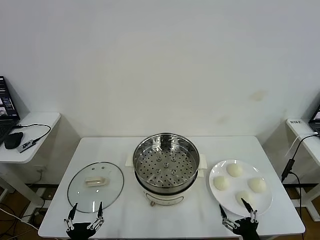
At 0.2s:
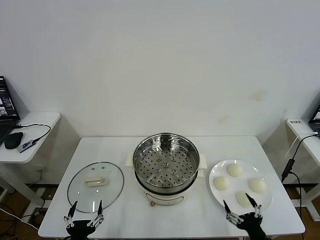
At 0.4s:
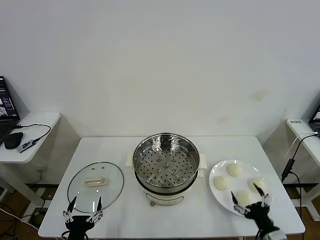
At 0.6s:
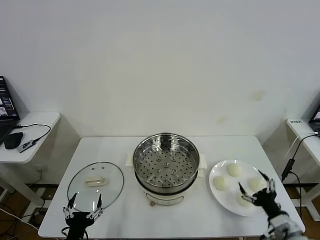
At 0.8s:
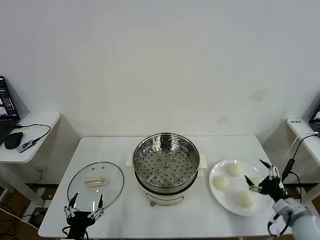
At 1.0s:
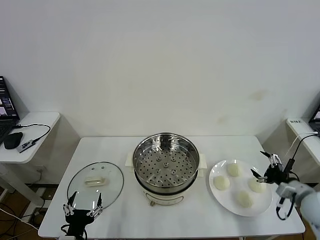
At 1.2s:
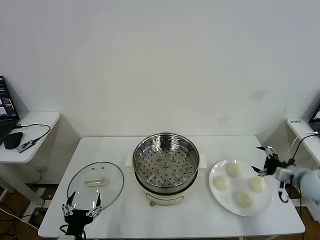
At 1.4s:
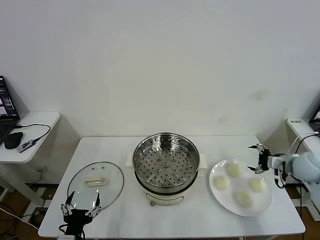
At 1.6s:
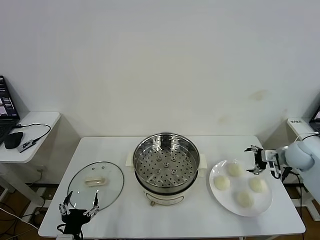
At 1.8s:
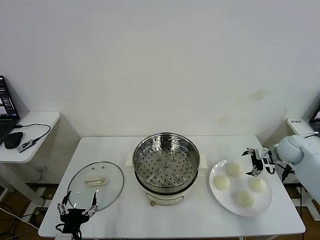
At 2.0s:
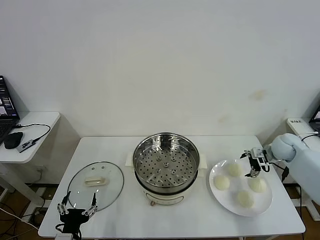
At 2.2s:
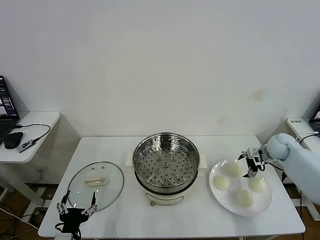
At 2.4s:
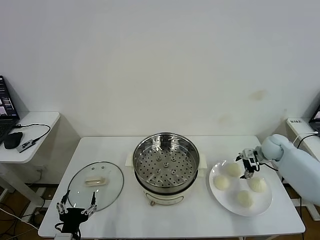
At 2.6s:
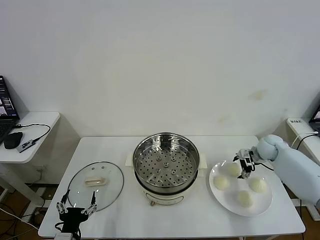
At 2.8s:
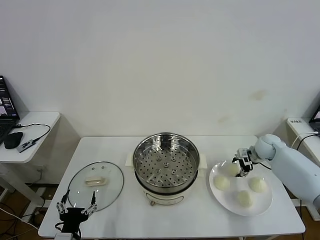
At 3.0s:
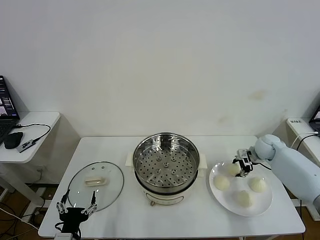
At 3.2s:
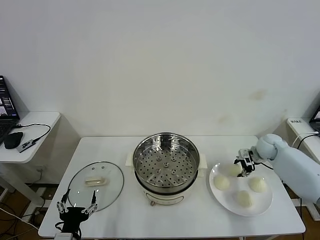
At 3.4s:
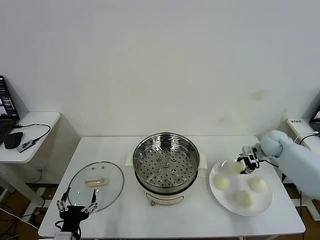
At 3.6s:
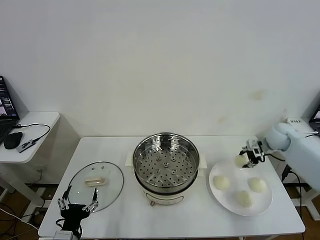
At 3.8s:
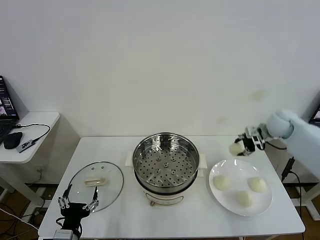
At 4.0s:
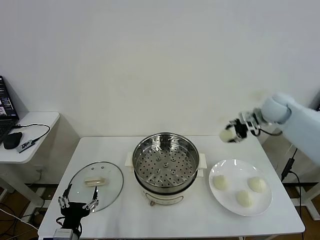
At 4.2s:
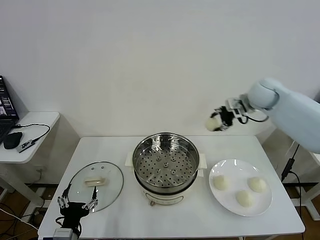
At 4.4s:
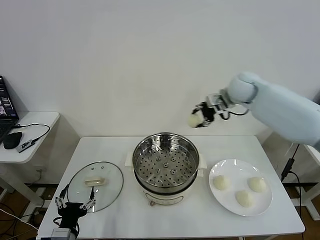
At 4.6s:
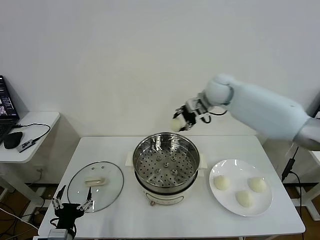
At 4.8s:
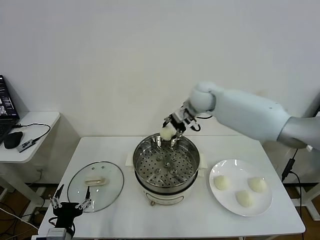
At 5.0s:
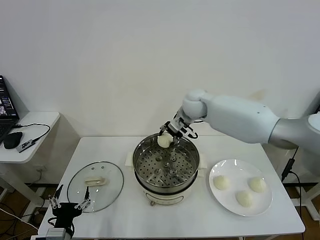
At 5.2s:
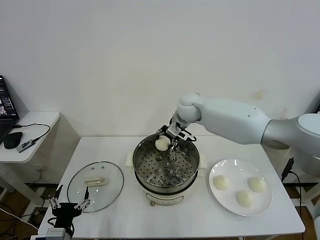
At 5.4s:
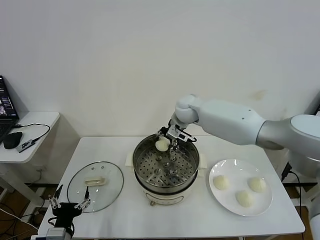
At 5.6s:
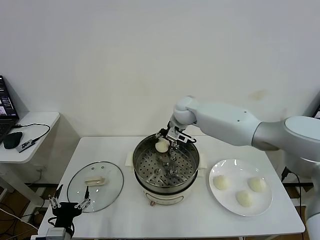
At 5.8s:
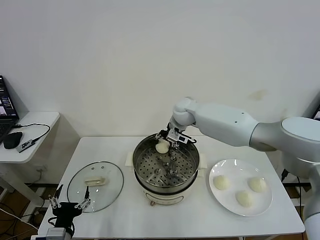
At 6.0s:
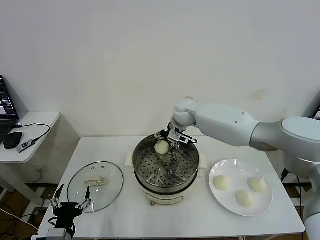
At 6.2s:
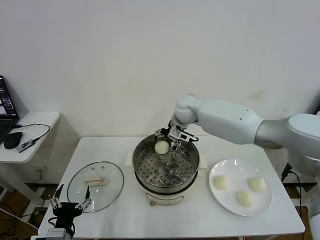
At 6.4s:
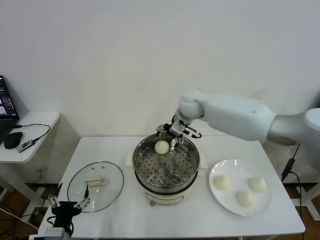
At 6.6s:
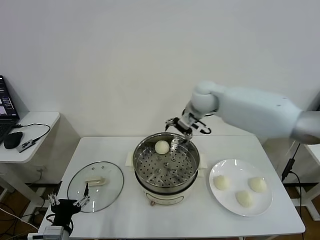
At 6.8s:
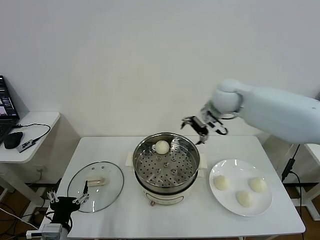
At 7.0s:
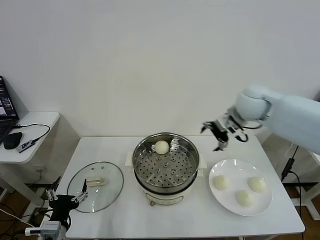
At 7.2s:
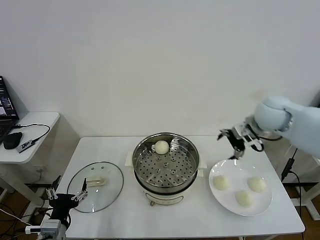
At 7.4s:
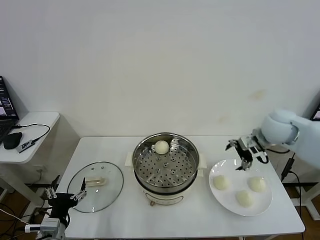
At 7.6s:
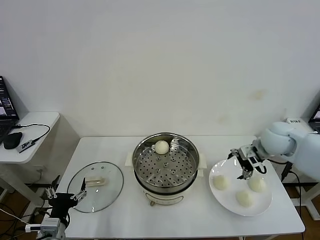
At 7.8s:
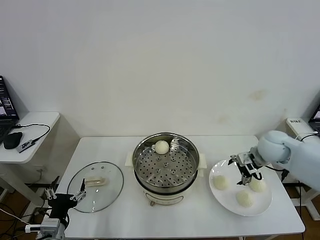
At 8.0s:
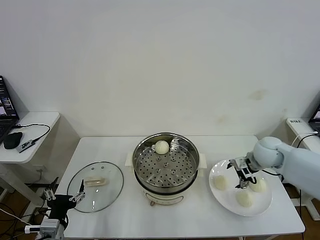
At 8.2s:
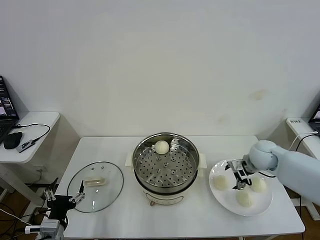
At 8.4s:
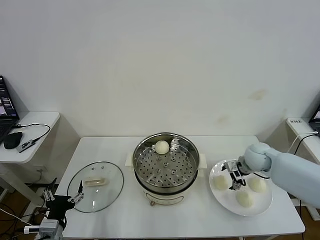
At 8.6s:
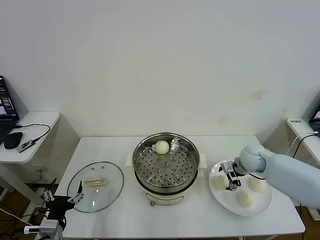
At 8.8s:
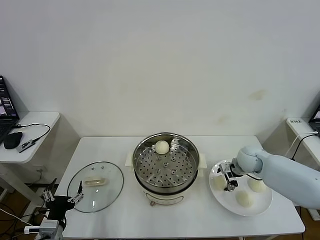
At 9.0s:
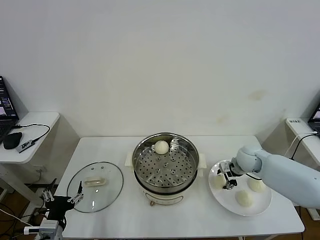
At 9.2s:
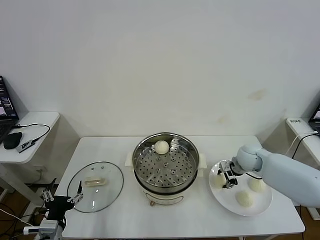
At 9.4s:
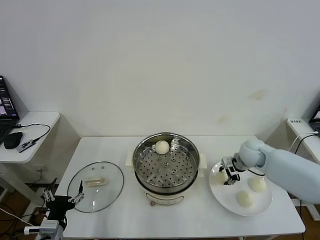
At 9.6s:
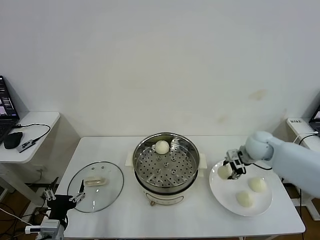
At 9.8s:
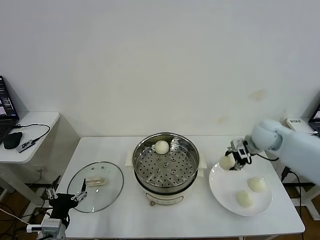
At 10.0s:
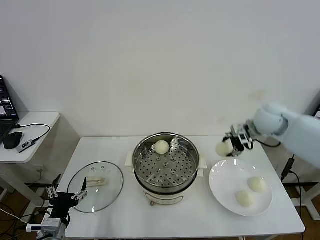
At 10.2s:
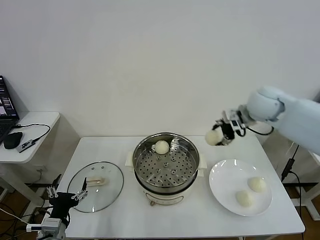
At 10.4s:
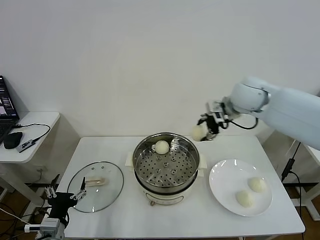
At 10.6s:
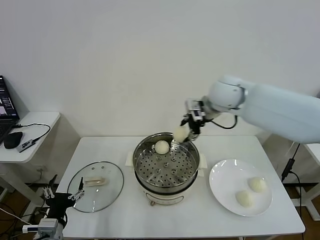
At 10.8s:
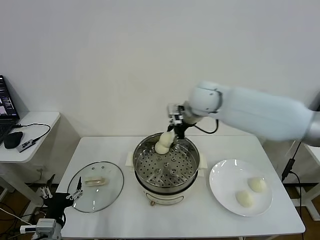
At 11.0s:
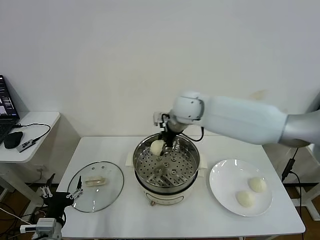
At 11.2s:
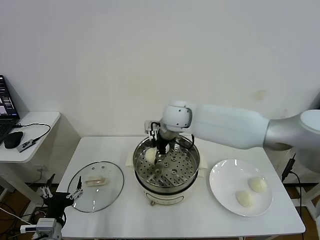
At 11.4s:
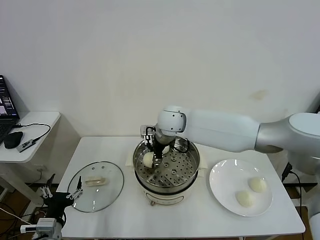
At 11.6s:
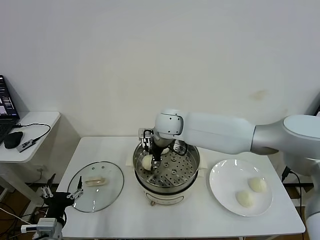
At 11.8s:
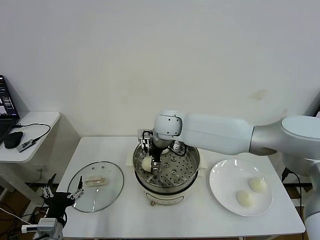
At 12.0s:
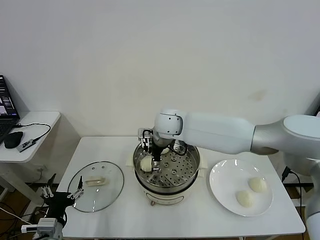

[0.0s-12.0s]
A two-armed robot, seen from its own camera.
Task of the whole recording: take steamed baozi put them in steamer then cover it.
Step, 0.0s to 3.0s: Grasp the baozi in the plate with right gripper.
Step, 3.2s to 5.8s: Place the baozi on the steamer with right gripper.
Step, 6.2s to 9.2s: Grasp the baozi in the plate with right gripper.
Step, 9.4s to 11.8s: Place the baozi on the steamer with right gripper.
1.6s to 3.0s: The right gripper travels forward and downward by approximately 10 cm, and closes.
3.0s to 4.4s: The right gripper shifts some 30 cm upward and to the left.
4.4s to 6.0s: The right gripper shifts approximately 15 cm to the left and downward, and opens its fingers.
6.0s to 7.6s: The right gripper heads to the right and backward, covering about 30 cm.
7.6s to 9.0s: The right gripper is displaced downward by about 10 cm, and closes.
9.0s to 10.4s: The right gripper heads upward and to the left, covering roughly 30 cm.
10.4s to 12.0s: The right gripper goes roughly 20 cm to the left and downward, and opens its fingers.

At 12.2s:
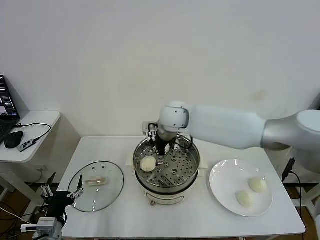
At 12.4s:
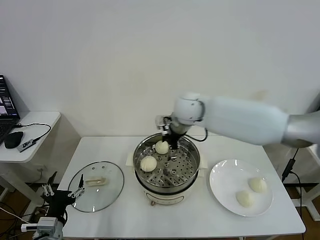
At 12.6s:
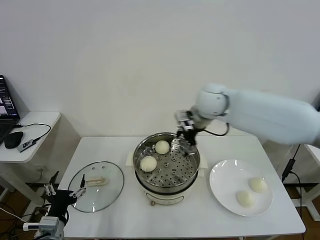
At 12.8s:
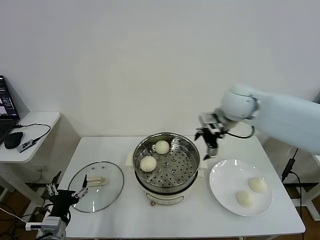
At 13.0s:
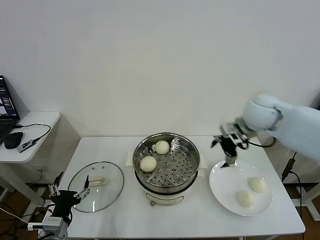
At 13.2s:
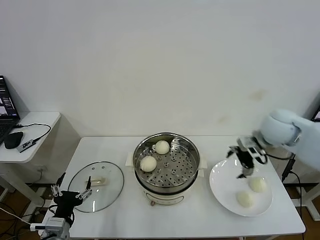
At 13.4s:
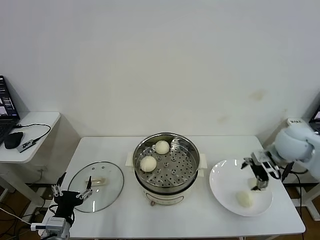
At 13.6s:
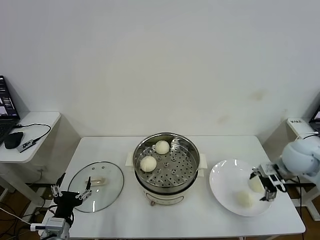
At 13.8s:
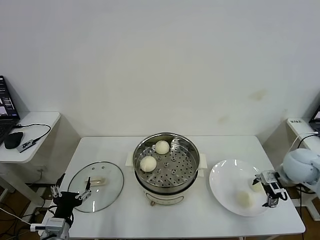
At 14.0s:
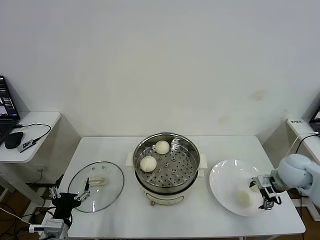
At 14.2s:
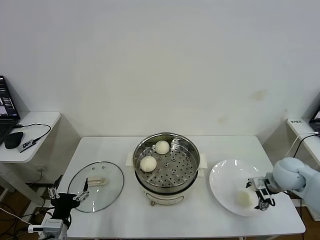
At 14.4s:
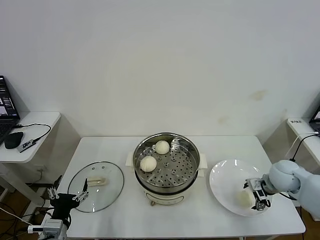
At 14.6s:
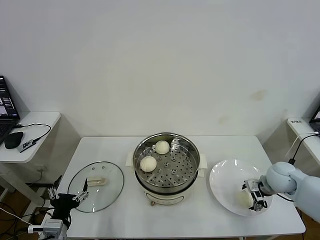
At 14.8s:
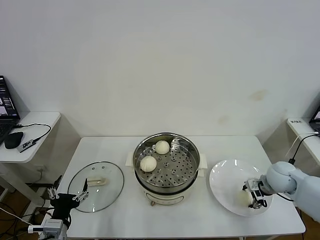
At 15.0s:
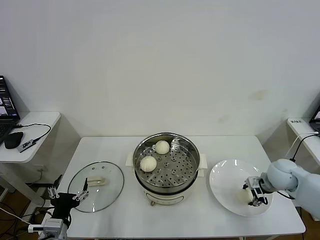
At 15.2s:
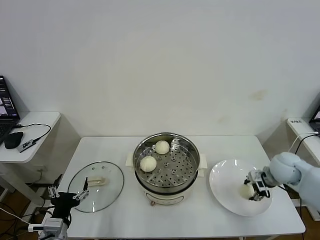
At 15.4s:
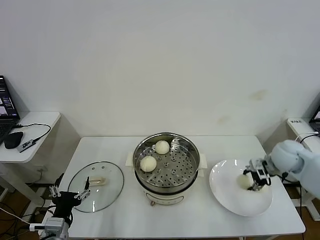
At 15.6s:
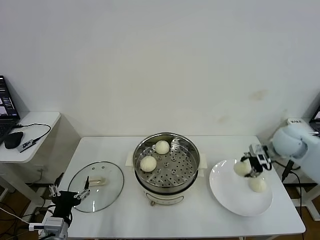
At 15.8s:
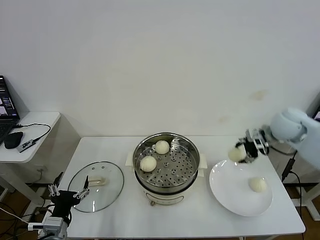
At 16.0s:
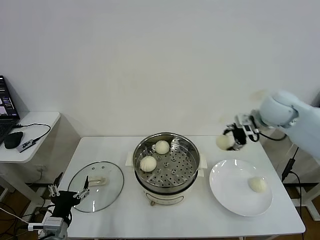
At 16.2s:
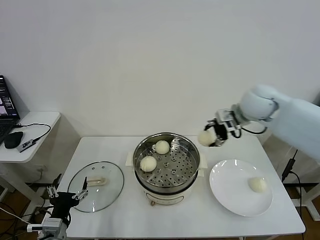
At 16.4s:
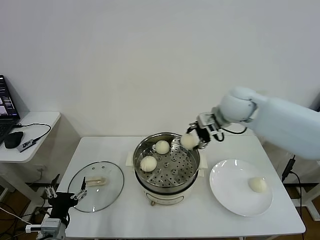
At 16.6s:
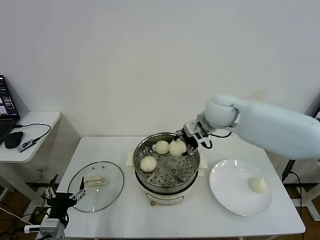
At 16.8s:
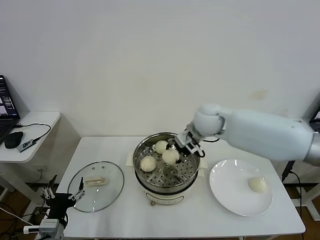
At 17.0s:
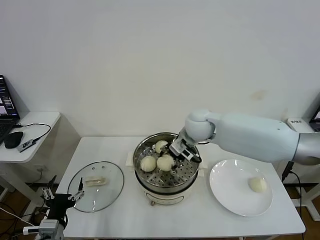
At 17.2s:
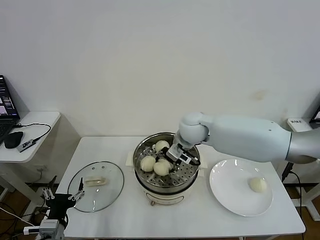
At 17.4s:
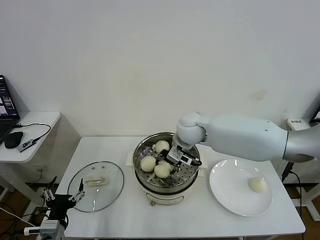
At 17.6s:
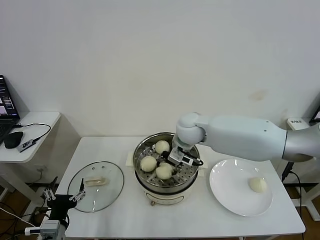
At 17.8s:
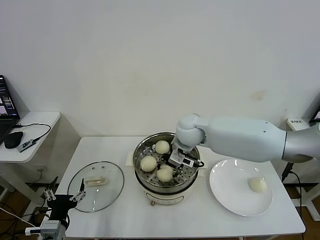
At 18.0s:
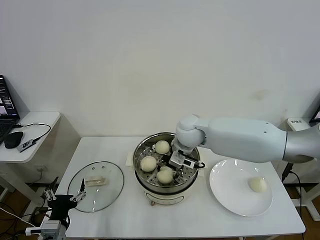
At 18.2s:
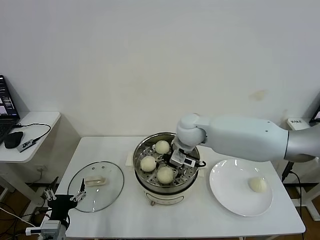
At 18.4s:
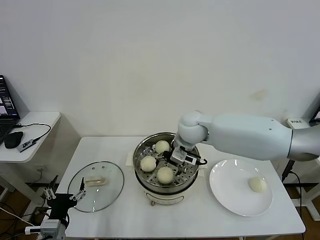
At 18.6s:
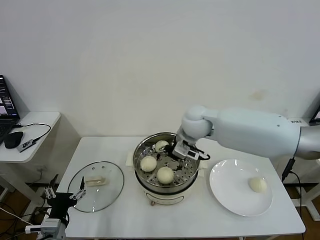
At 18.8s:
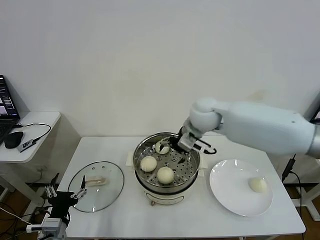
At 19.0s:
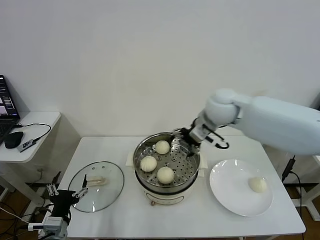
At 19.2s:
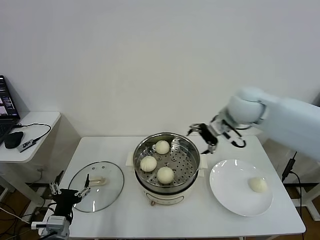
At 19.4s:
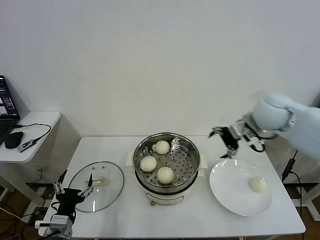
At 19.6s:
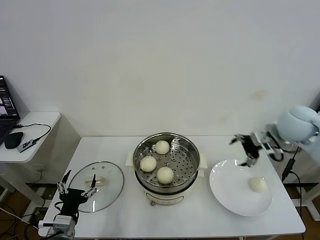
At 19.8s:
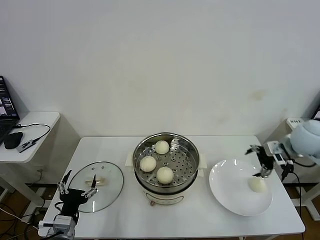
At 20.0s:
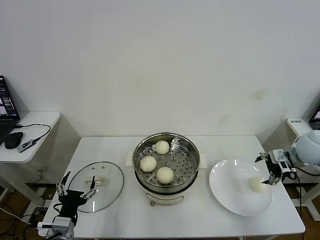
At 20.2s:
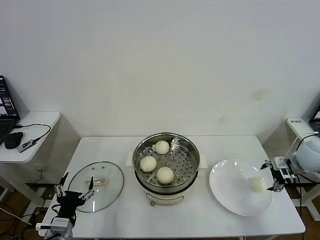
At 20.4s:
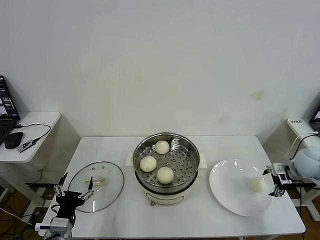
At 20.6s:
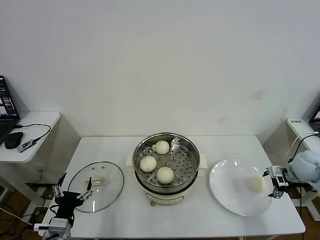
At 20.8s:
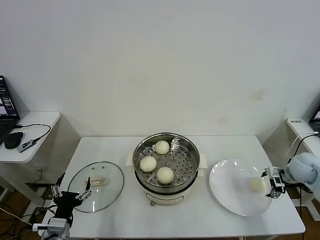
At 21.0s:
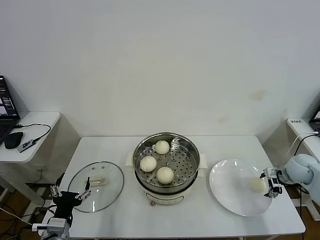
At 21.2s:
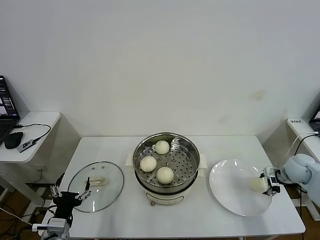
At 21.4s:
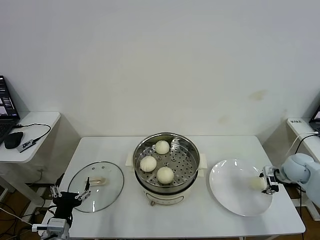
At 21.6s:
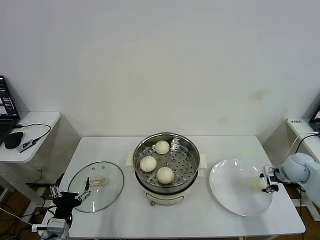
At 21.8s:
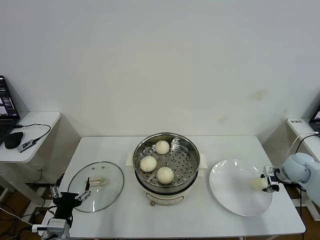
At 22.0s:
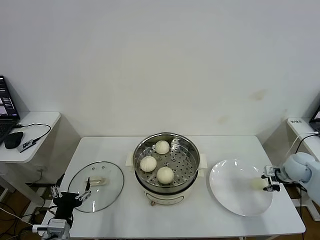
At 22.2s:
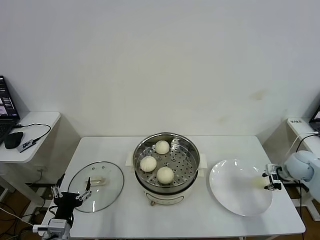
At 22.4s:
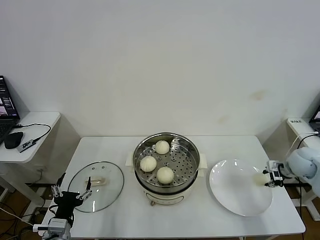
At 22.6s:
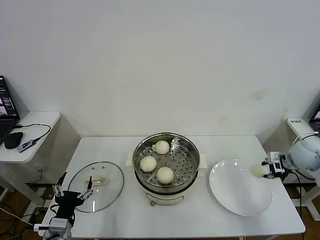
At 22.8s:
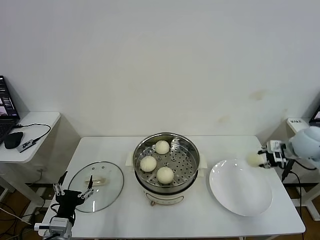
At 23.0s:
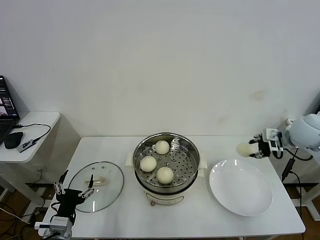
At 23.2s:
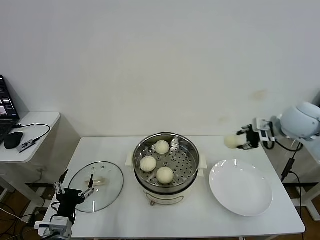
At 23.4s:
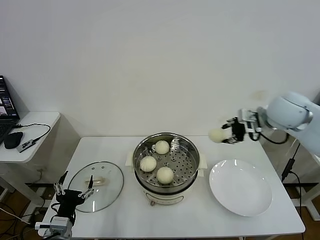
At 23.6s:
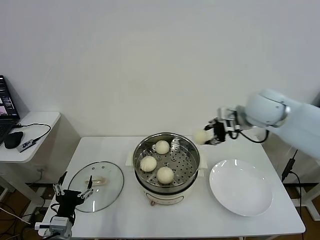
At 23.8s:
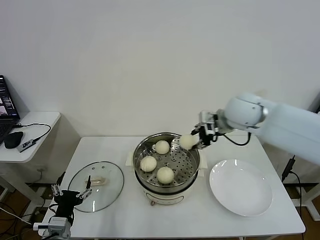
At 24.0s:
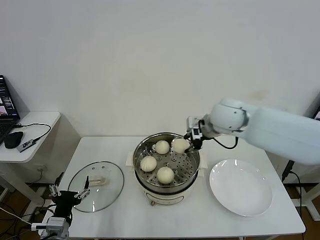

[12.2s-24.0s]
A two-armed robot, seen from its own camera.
Task of the whole recording: take steamed baozi put them in steamer then cover it.
Step, 12.2s to 14.8s: Grasp the baozi in the plate with right gripper.
Step, 15.2s to 18.2s: Place the baozi on the steamer with right gripper.
Step, 18.4s to 22.0s: Grasp the baozi in the plate with right gripper.
12.2s to 13.6s: The right gripper moves to the right, roughly 35 cm.
13.6s to 15.2s: The right gripper closes its fingers.
15.2s to 16.6s: The right gripper moves to the left and upward, approximately 30 cm.
16.6s to 18.2s: The right gripper moves to the left, some 5 cm, and opens.
18.2s to 19.6s: The right gripper moves to the right, about 30 cm.
19.6s to 21.0s: The right gripper travels downward and to the right by roughly 20 cm.
21.0s to 22.6s: The right gripper is displaced upward by about 10 cm, and closes.
22.6s to 24.0s: The right gripper is displaced to the left by roughly 30 cm.
